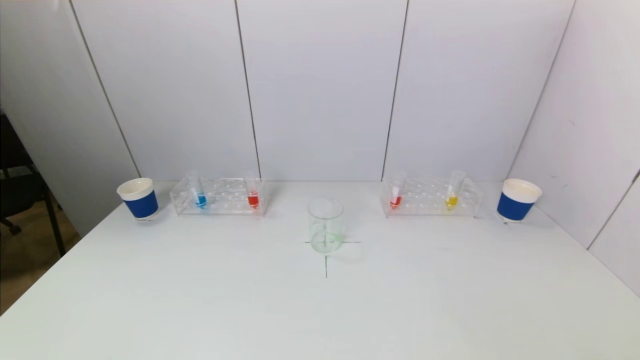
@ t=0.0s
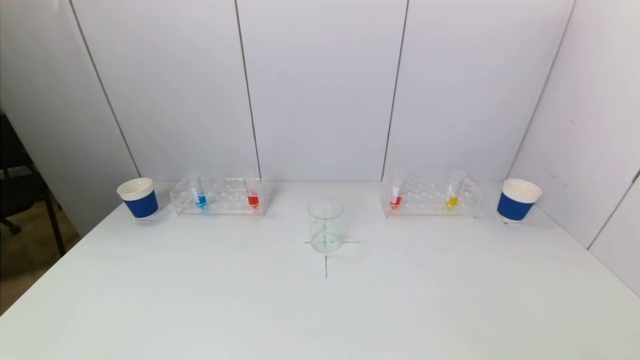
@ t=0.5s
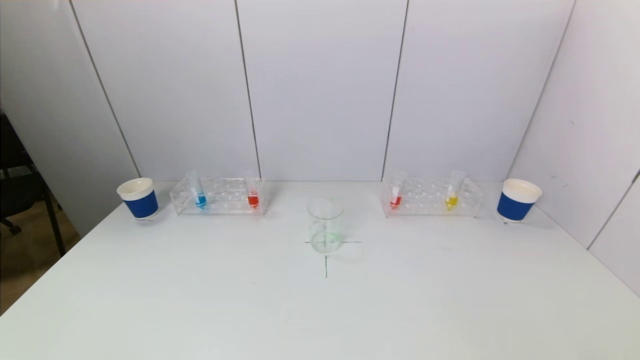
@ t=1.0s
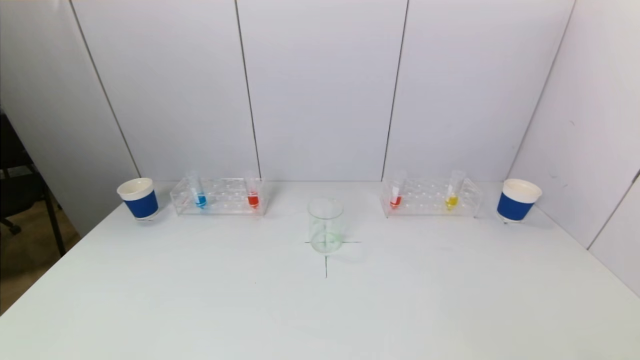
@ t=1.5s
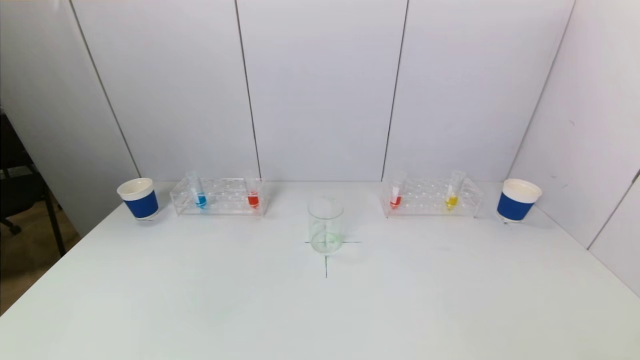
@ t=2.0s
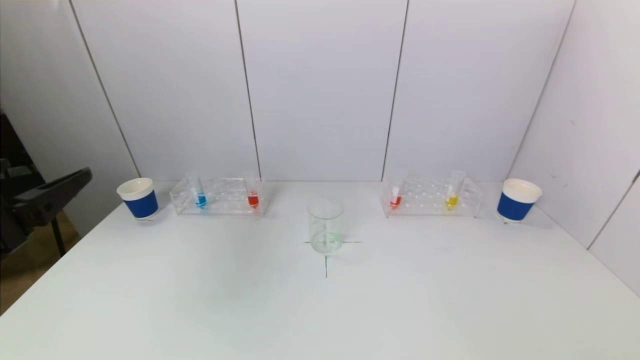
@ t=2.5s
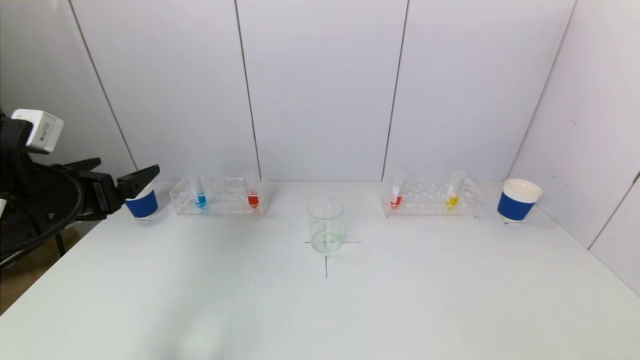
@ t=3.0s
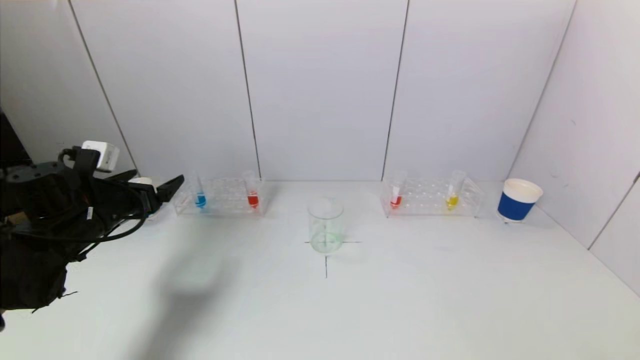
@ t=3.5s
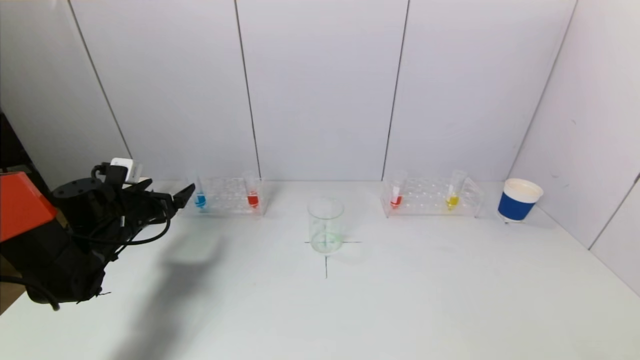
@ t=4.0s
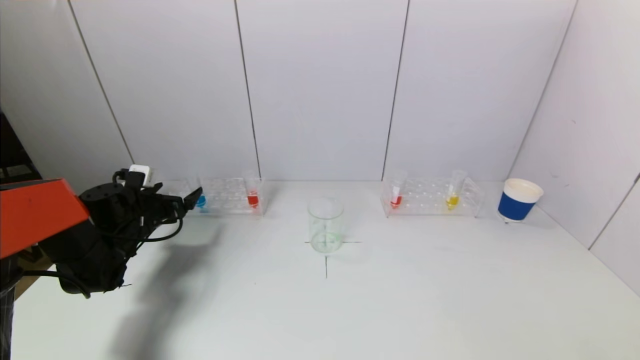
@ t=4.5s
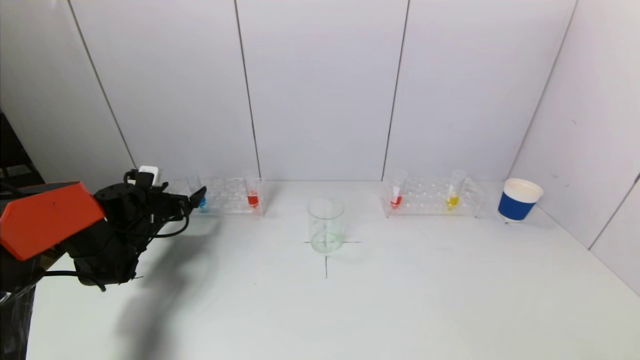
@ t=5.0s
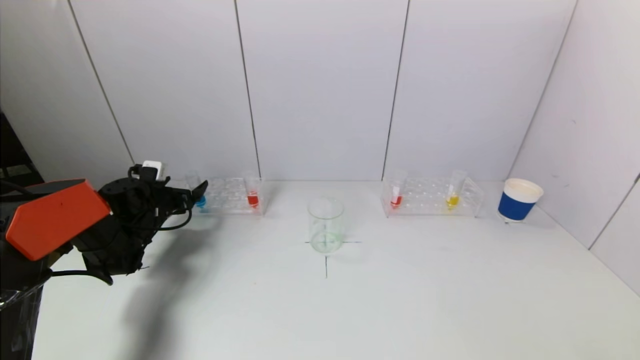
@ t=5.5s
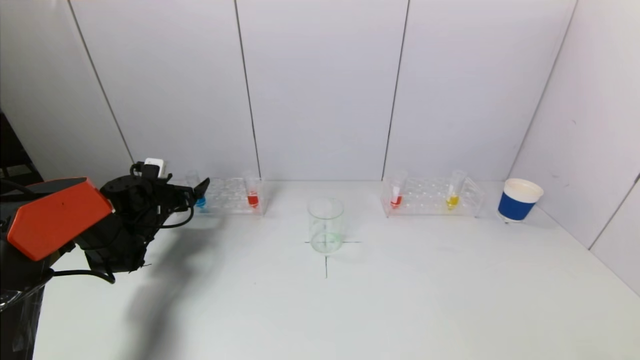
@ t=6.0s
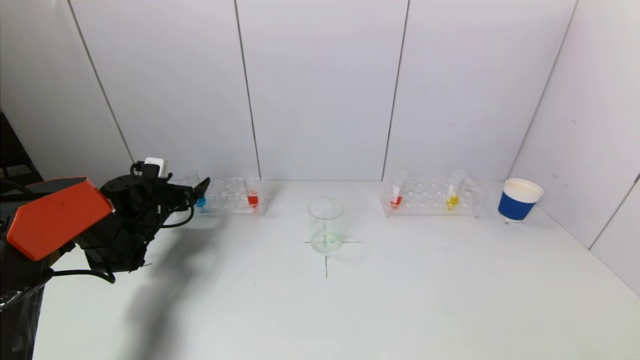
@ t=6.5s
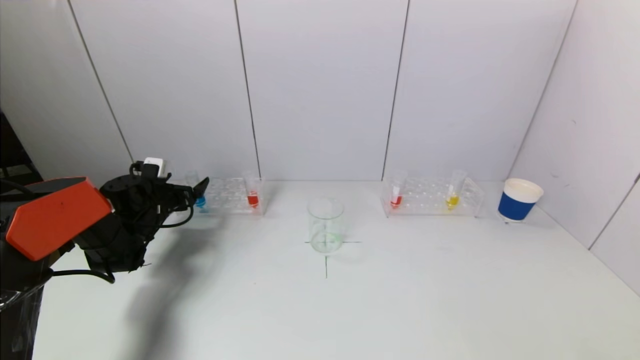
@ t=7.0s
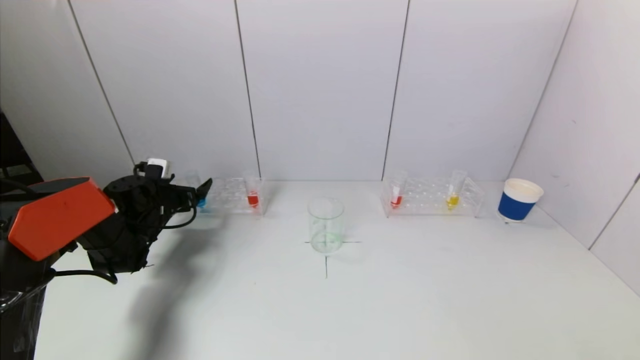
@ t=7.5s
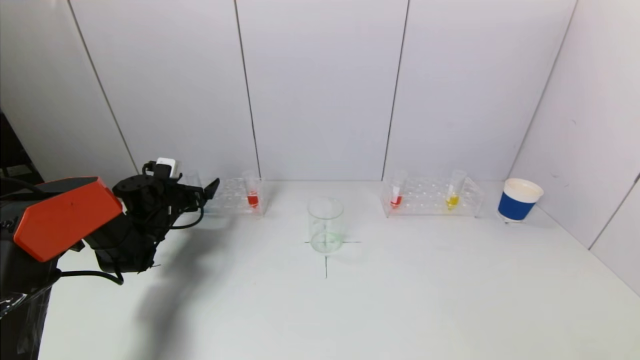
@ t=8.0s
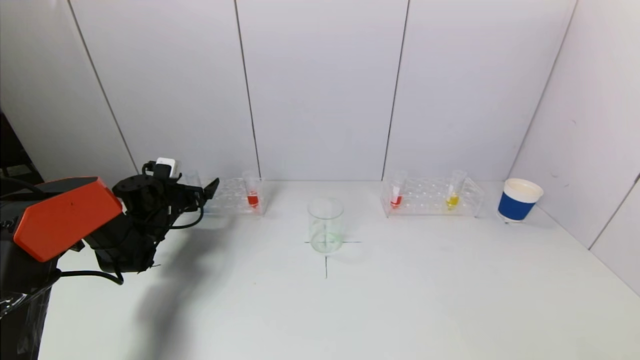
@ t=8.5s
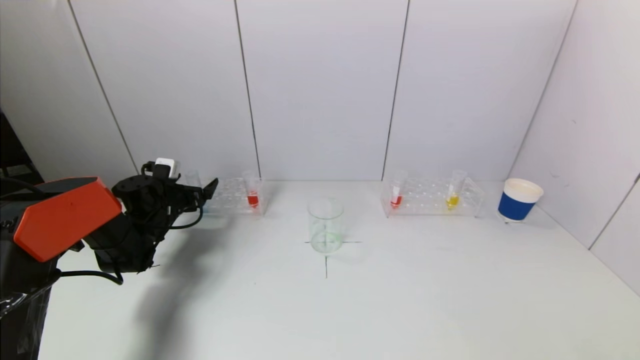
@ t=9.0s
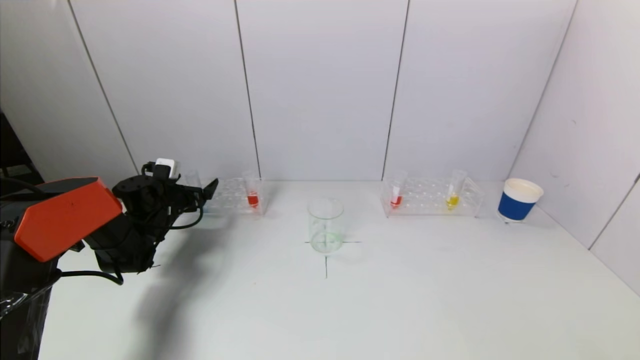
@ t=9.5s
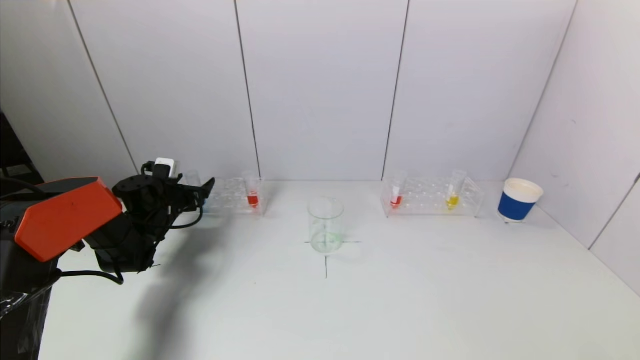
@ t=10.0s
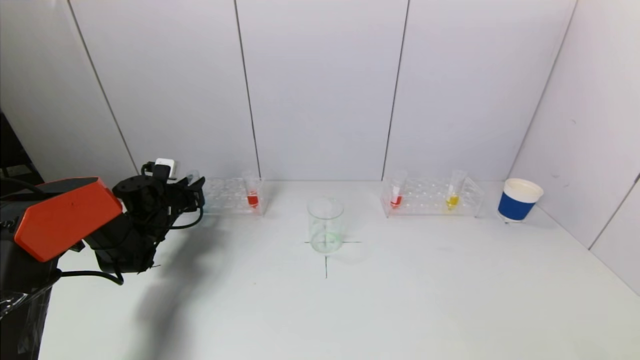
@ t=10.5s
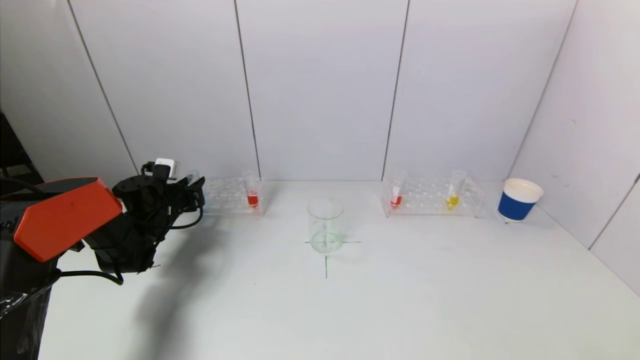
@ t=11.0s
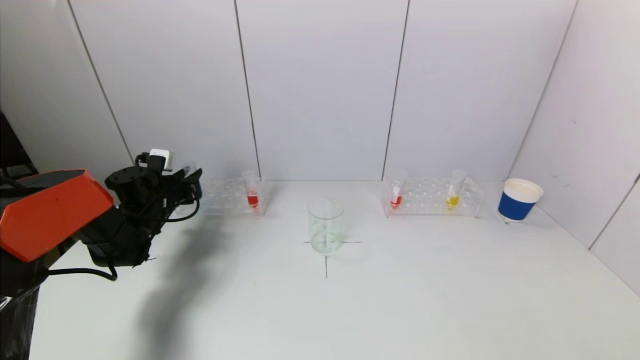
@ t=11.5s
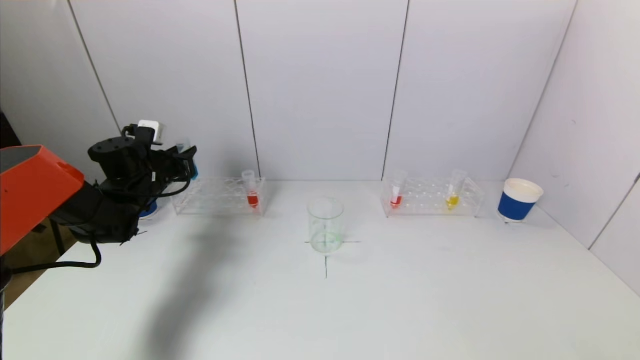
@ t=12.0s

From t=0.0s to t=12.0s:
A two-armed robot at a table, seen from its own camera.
Task of the whole recording: pick up a test tube with pigment on left test tube rack and a test tube with pigment on right test tube rack by grippers and pour them into the beaker.
Step, from t=0.0s to t=10.5s: Grasp the blue reagent with the left gripper.
From t=2.0s to t=4.0s: The left gripper heads forward, covering some 35 cm.
From t=4.0s to t=6.0s: The left gripper moves forward, roughly 10 cm.
From t=6.0s to t=8.0s: There are only small adjustments of the grippers.
From t=8.0s to t=10.0s: Neither gripper changes place.
From t=10.0s to t=12.0s: The left gripper shifts some 10 cm upward, and closes.

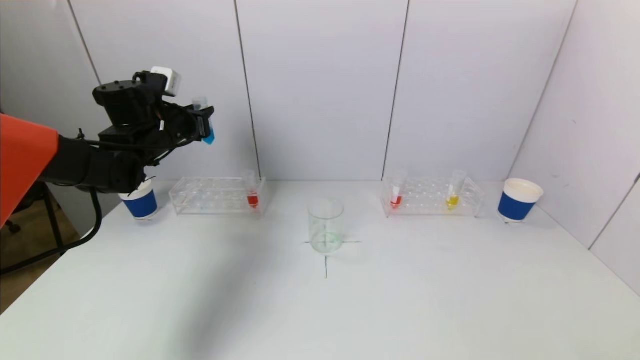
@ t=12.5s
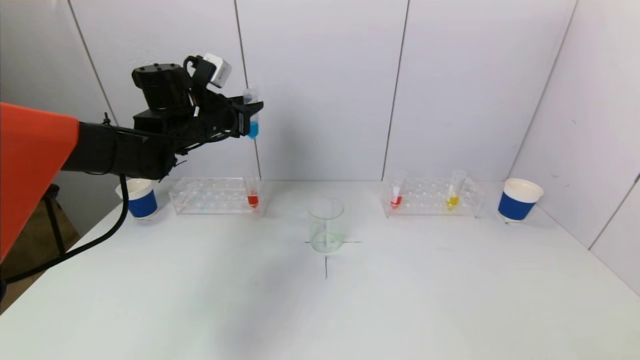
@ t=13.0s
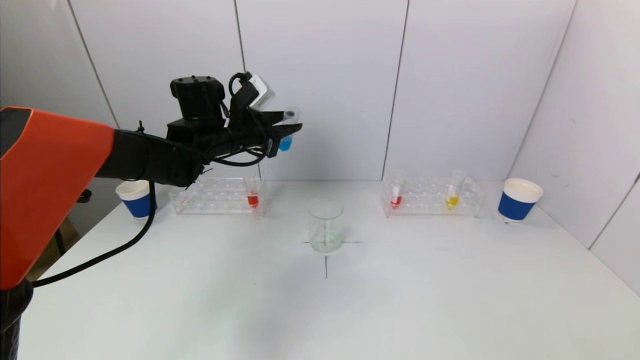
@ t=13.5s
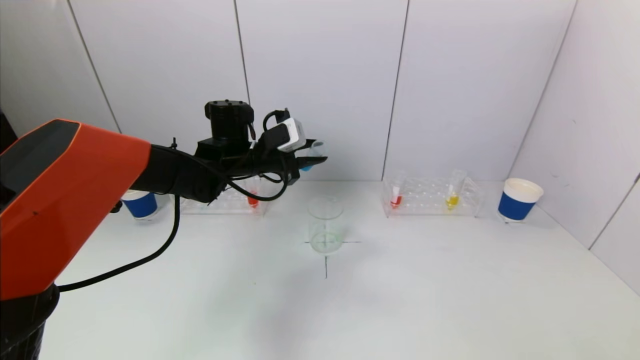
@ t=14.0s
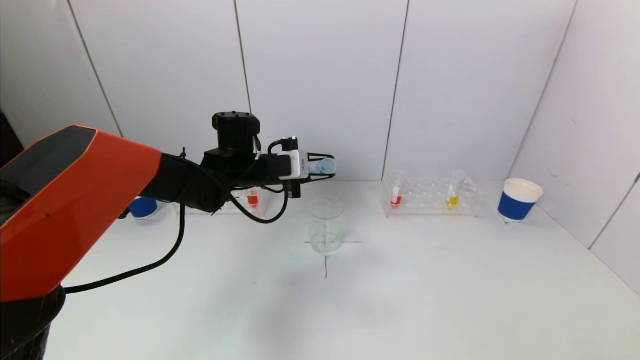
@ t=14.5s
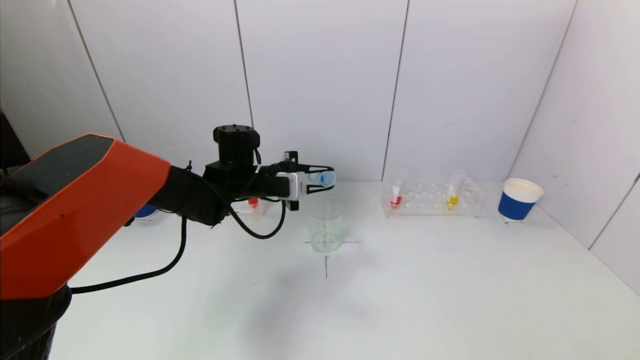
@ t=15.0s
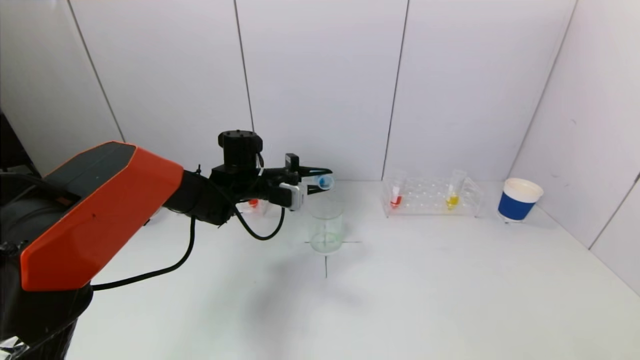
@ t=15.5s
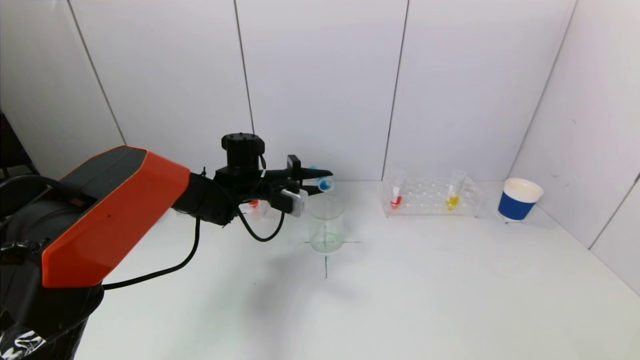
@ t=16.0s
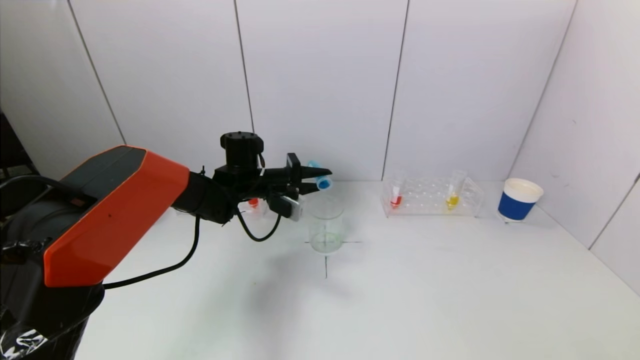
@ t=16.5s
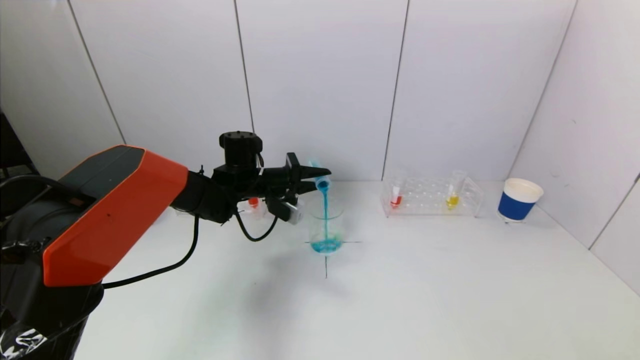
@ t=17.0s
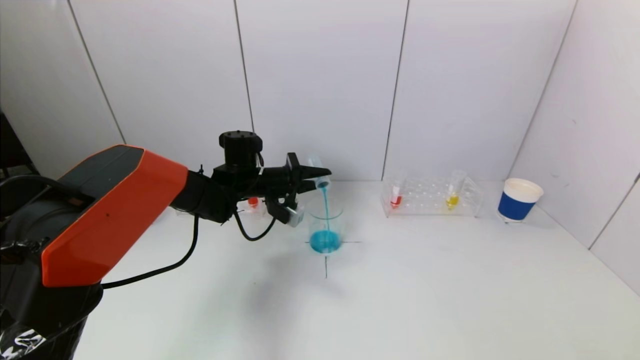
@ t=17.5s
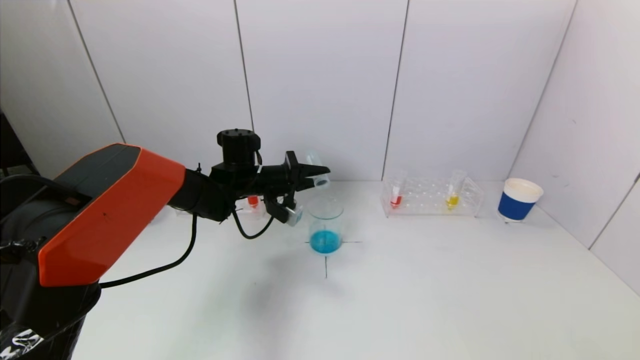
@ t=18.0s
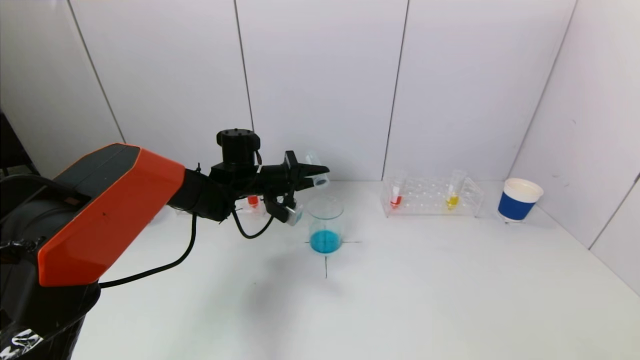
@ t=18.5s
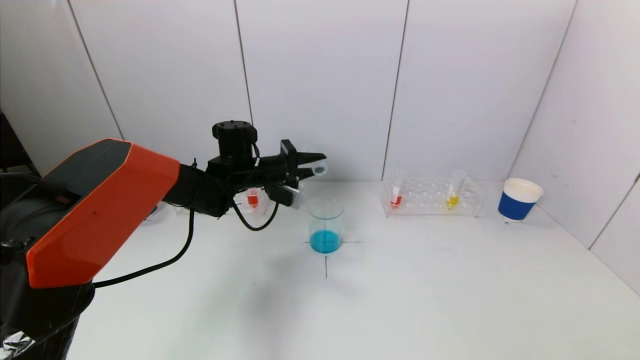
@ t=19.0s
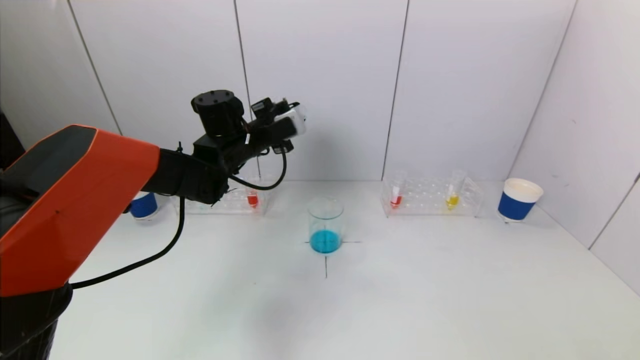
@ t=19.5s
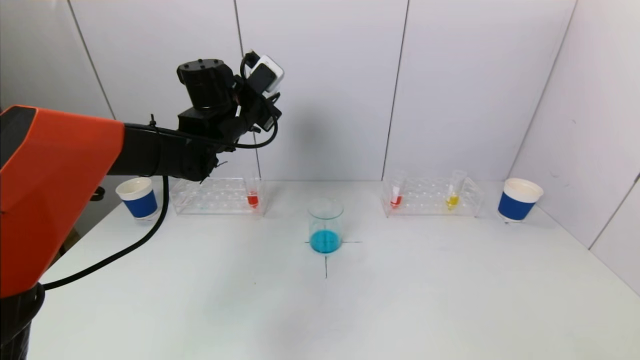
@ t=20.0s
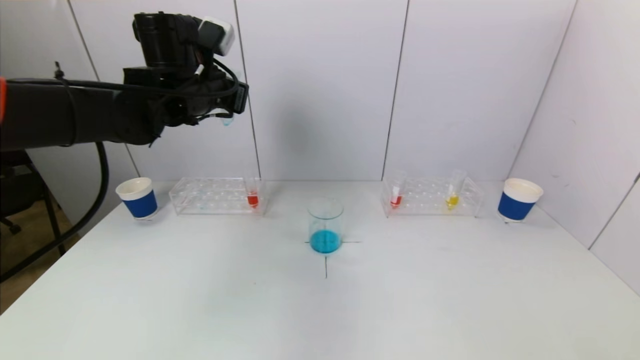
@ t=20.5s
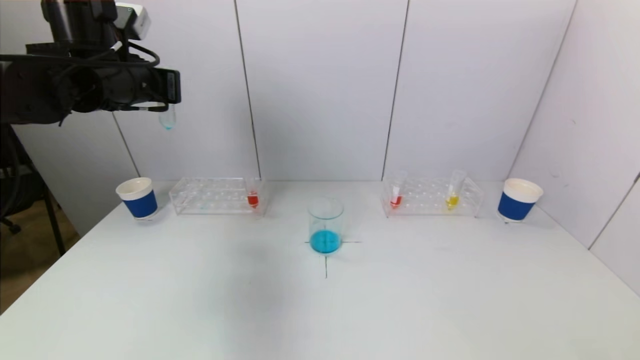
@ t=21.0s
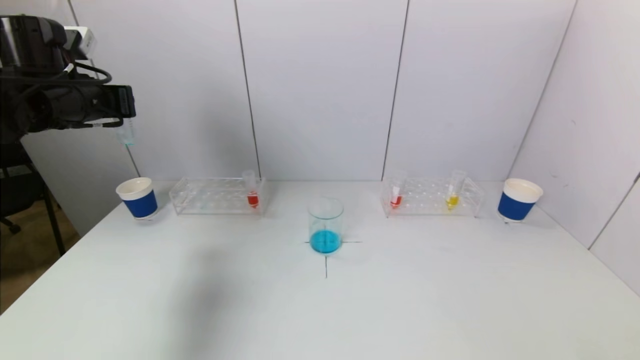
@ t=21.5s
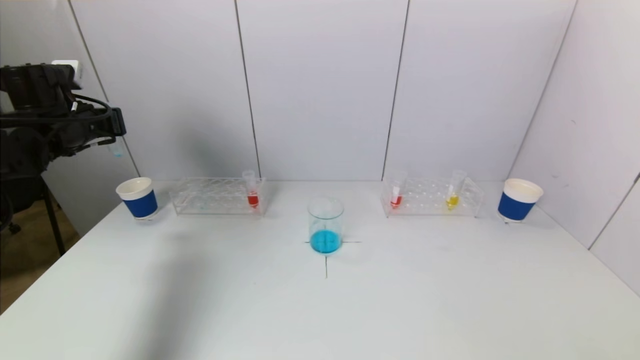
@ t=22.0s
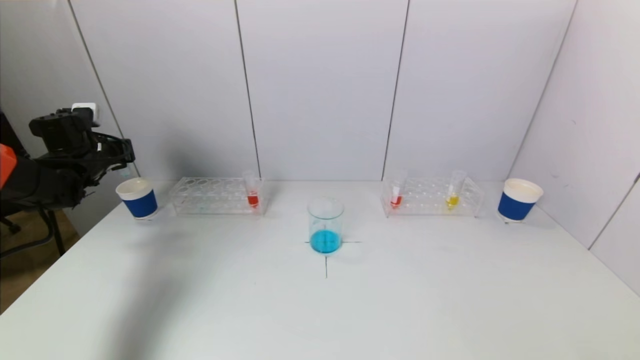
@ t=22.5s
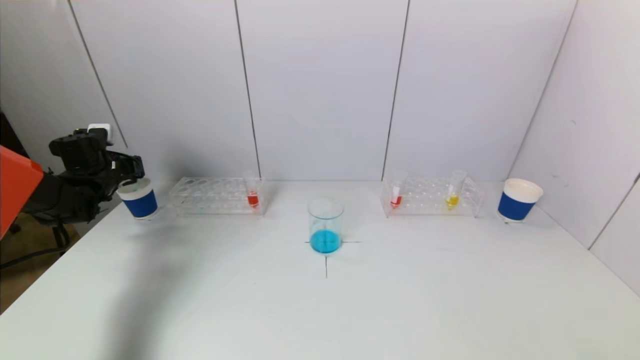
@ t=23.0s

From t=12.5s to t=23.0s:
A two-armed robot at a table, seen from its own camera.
Task of the whole recording: pick up a test tube with pigment on left test tube rack and a test tube with pigment on right test tube rack by grippers and pour them into the beaker.
Step, from t=12.5s to t=18.0s: Pour the blue reagent into the graduated cylinder with the left gripper.
From t=12.5s to t=14.5s: The left gripper heads to the right, covering approximately 15 cm.
From t=14.5s to t=16.5s: The left gripper ends up roughly 5 cm from where it was.
From t=16.5s to t=19.0s: The grippers stay close to where they were, moving slightly.
From t=19.0s to t=21.0s: The left gripper is displaced upward, to the left and backward by approximately 25 cm.
From t=21.0s to t=23.0s: The left gripper shifts about 25 cm downward, to the left and forward.
